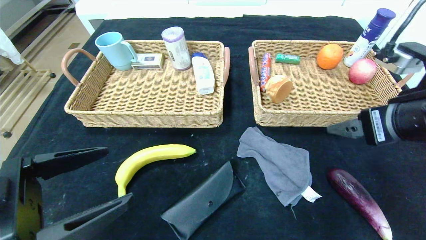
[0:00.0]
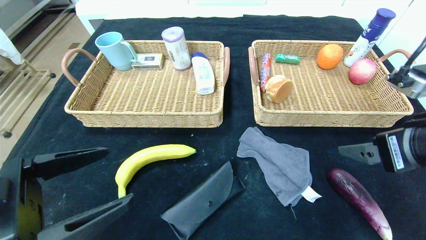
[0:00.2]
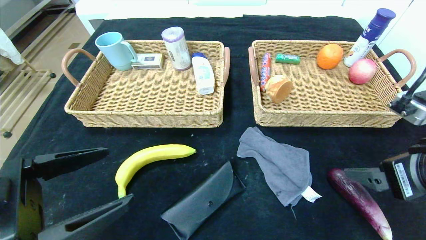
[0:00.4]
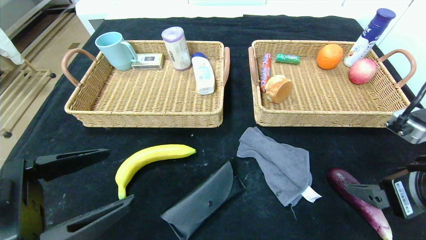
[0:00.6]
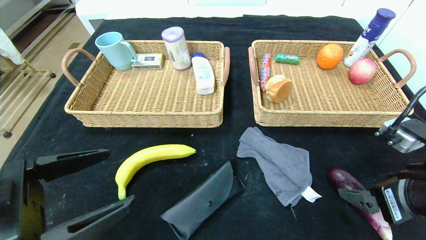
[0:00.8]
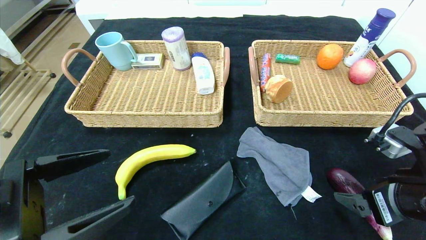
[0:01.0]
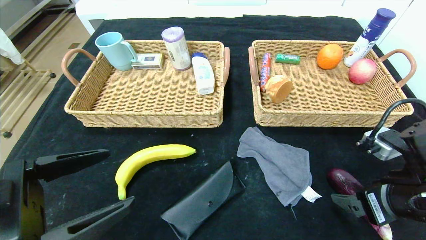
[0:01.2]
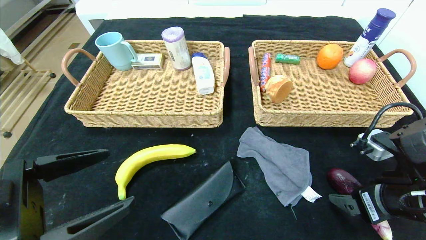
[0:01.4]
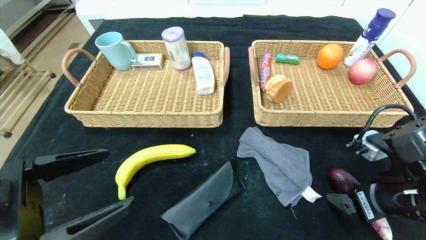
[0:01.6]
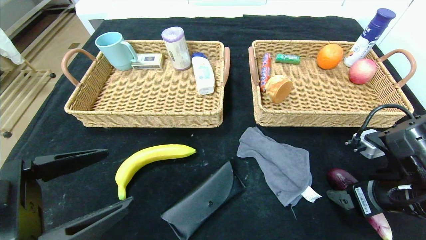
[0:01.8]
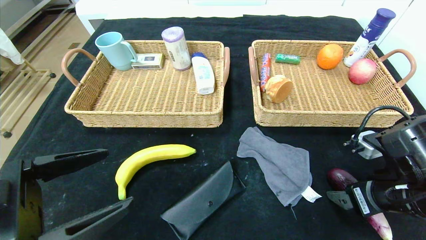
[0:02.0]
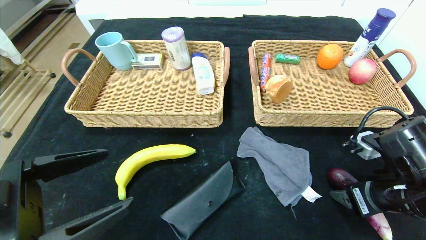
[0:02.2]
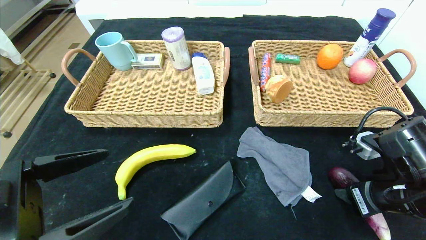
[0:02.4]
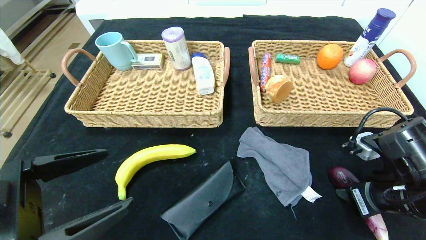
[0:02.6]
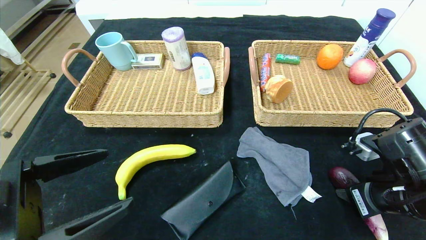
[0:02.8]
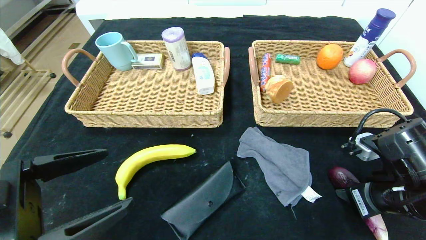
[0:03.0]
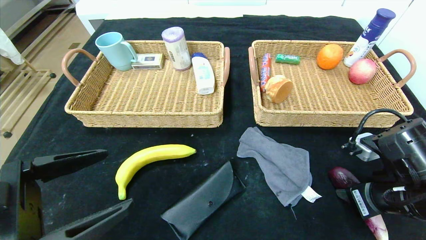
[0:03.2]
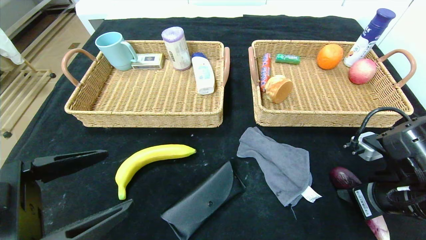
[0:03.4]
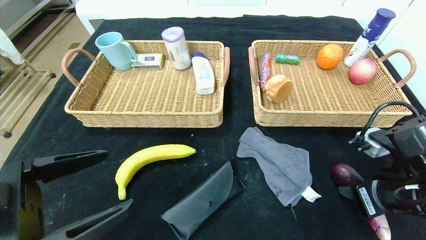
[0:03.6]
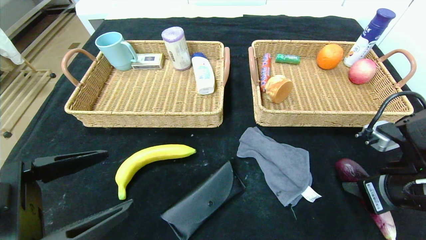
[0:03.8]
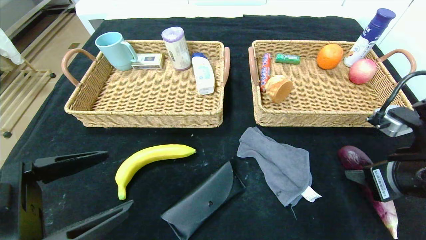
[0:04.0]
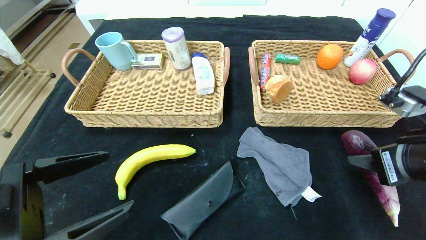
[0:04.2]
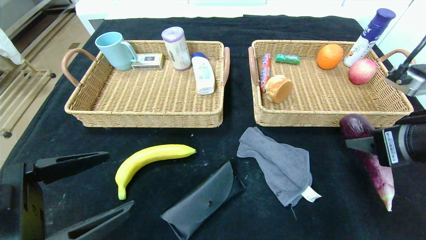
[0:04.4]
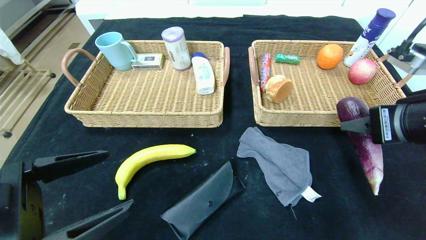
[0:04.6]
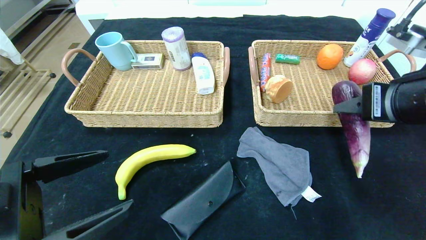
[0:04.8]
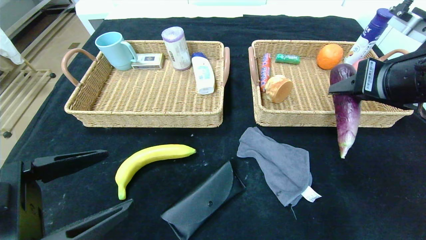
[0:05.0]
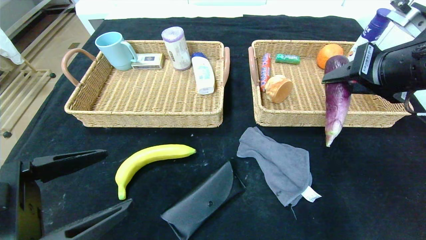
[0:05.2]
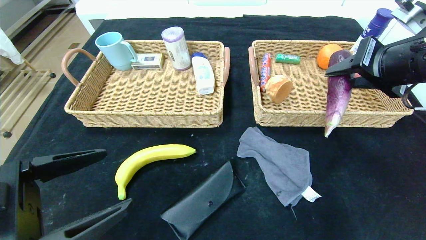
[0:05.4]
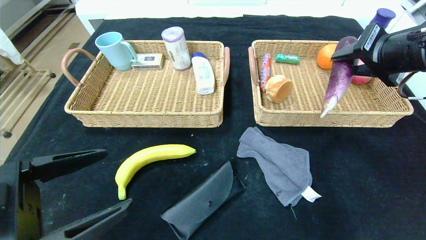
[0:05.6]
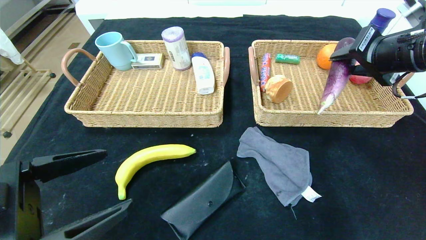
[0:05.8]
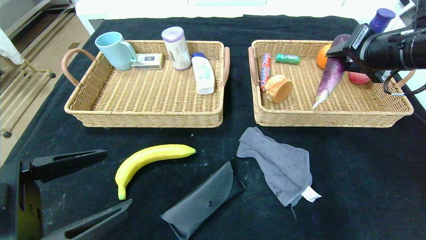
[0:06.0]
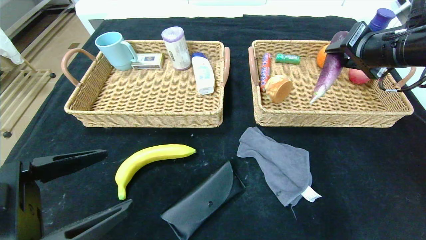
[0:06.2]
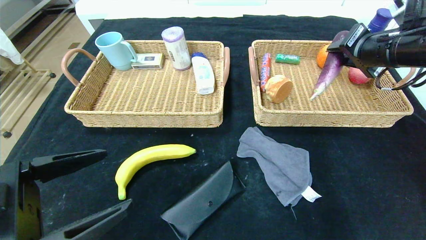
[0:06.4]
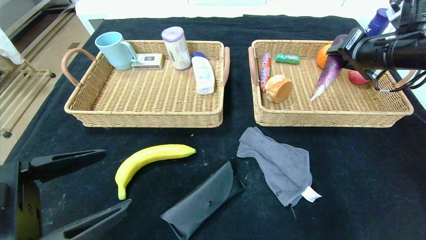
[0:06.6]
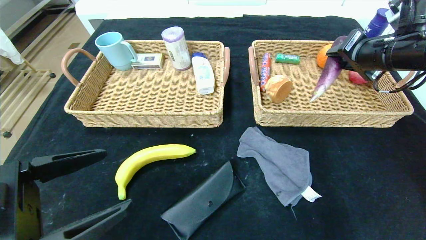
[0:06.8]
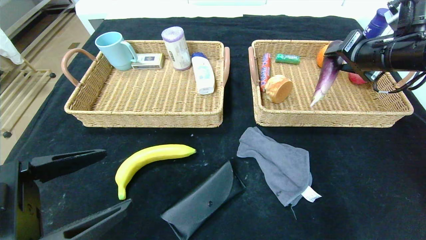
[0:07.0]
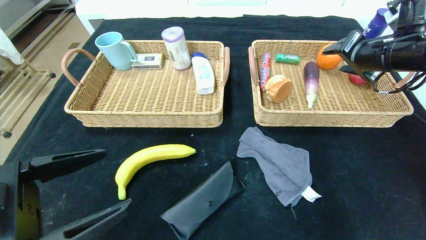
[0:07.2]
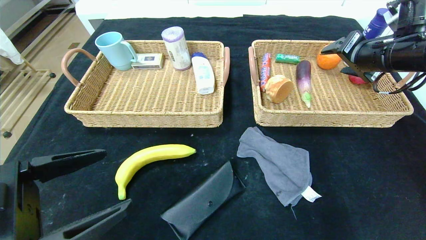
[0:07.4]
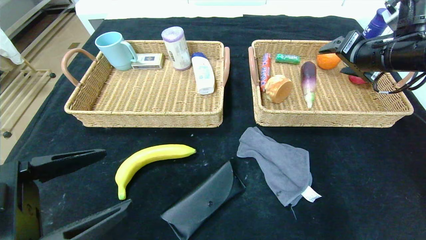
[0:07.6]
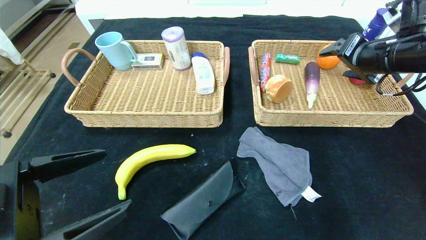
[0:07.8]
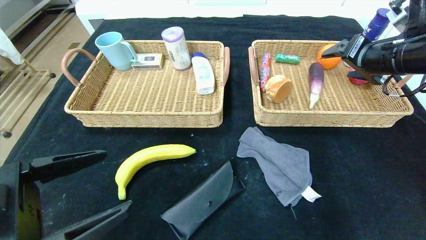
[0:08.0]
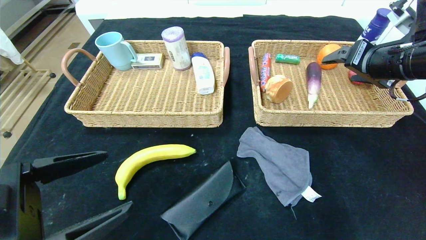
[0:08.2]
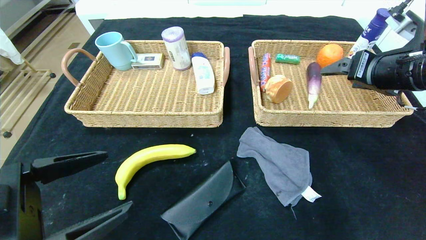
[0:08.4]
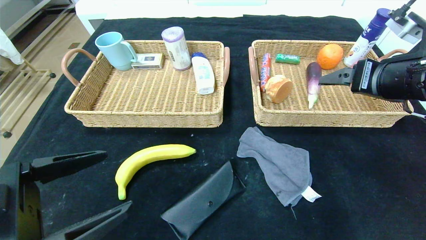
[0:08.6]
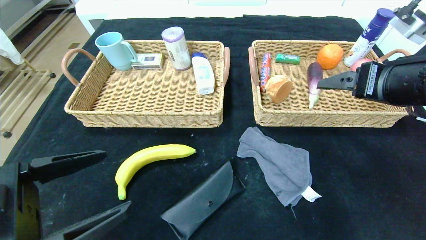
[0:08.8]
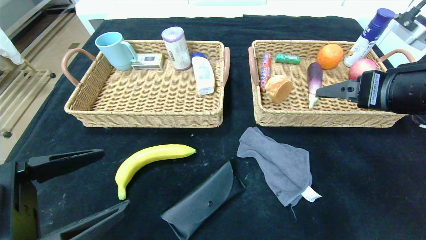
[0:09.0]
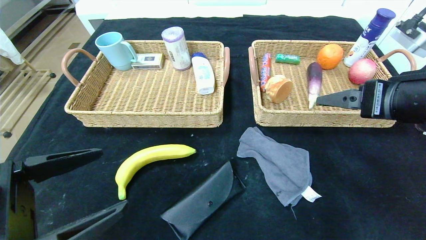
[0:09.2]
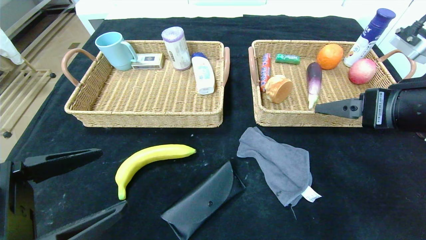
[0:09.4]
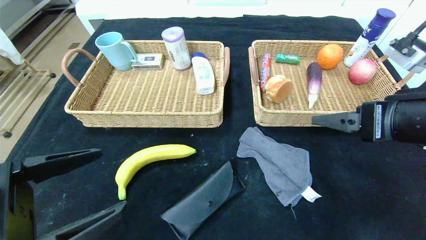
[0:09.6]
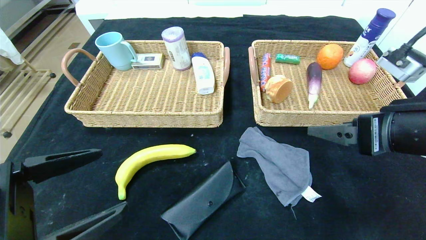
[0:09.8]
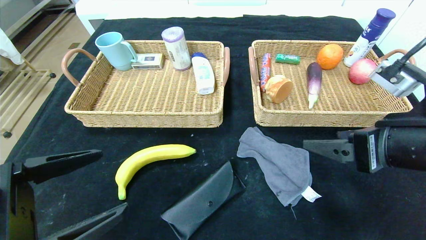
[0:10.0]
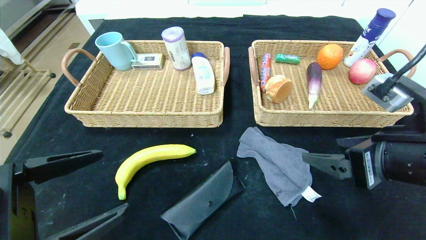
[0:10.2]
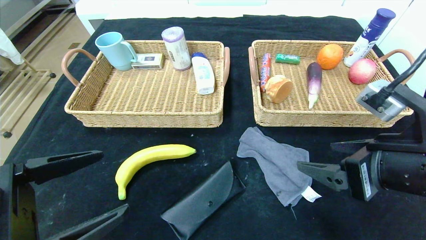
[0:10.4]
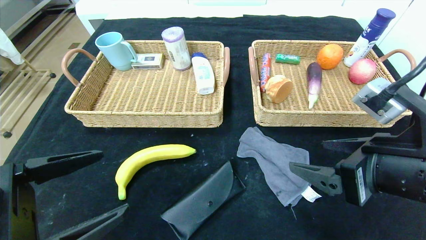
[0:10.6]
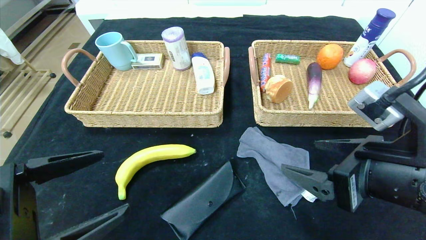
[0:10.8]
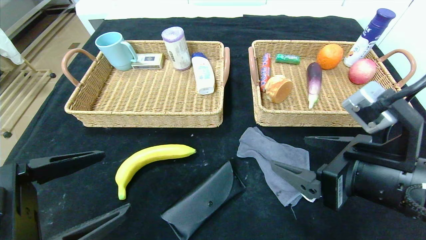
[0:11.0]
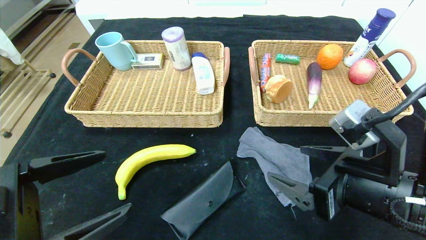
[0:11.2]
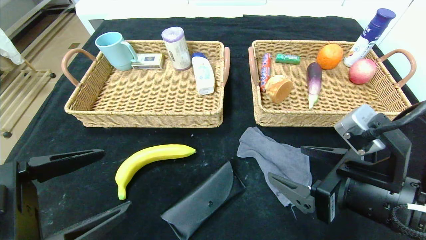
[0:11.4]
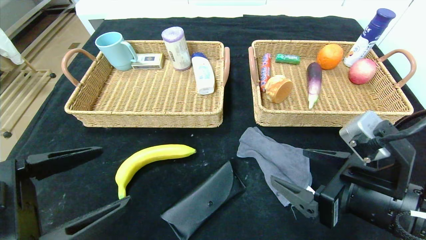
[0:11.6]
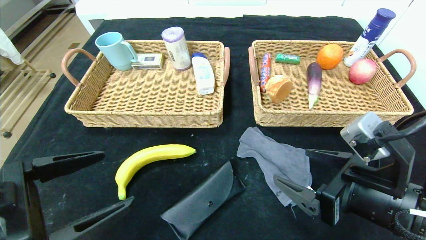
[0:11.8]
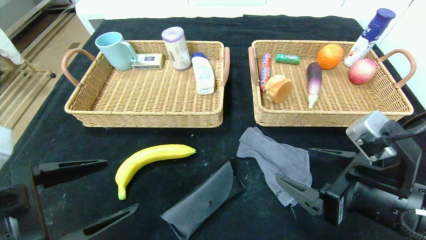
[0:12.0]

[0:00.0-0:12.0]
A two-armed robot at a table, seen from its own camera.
Step, 0:00.0 to 0:07.2: Grasp the eggplant and put it in the right basket.
0:00.0 to 0:01.6: The right gripper goes approximately 10 cm downward.
0:01.6 to 0:03.0: The right gripper closes.
0:03.0 to 0:04.4: The right gripper heads upward, covering about 10 cm.
0:04.4 to 0:06.0: The right gripper shifts about 15 cm forward and upward.
0:06.0 to 0:07.6: The right gripper opens.
0:07.6 to 0:09.0: The right gripper is displaced backward by approximately 10 cm.
0:09.0 to 0:10.4: The right gripper heads downward and backward, covering about 10 cm.
0:10.4 to 0:12.0: The right gripper shifts by about 5 cm.

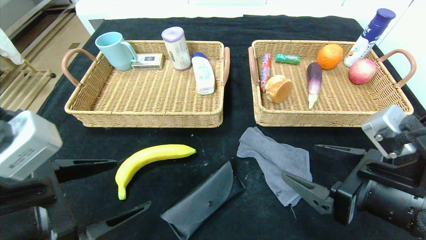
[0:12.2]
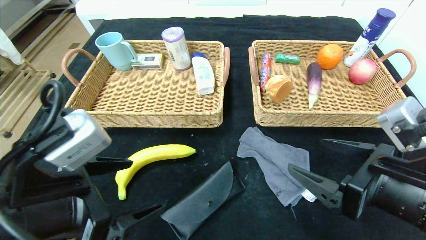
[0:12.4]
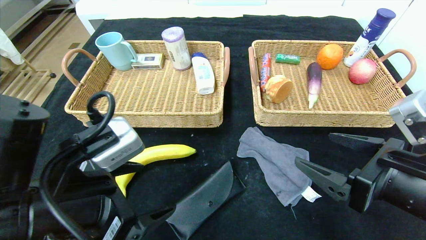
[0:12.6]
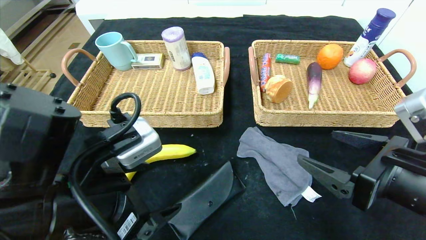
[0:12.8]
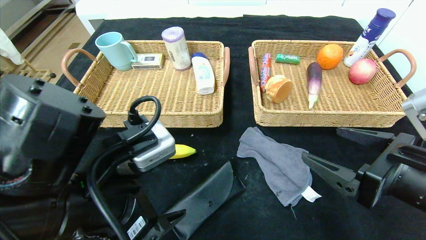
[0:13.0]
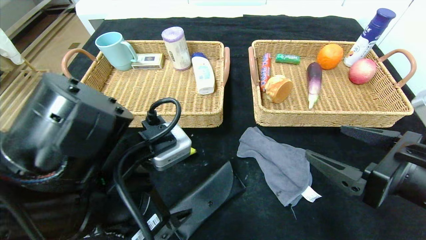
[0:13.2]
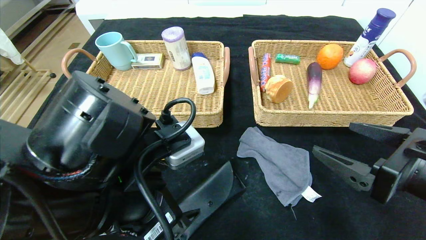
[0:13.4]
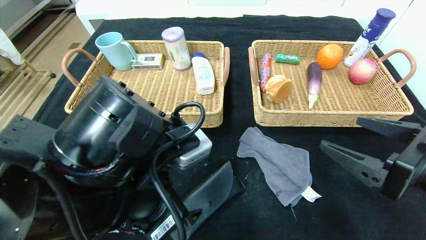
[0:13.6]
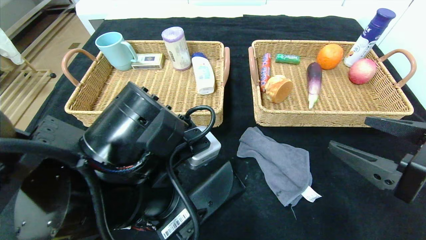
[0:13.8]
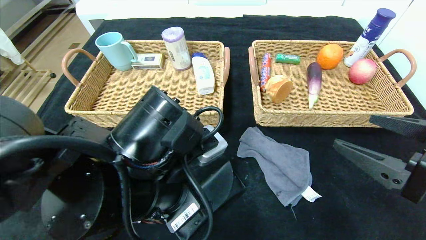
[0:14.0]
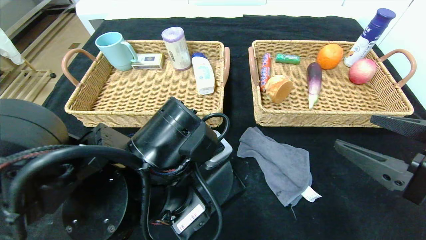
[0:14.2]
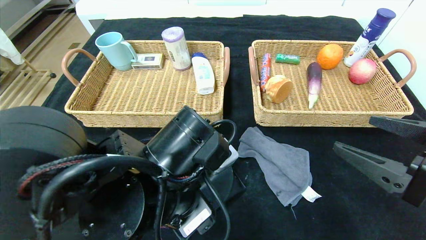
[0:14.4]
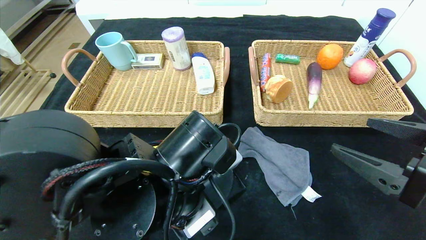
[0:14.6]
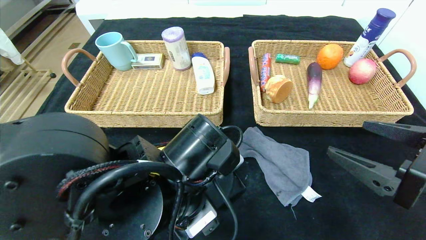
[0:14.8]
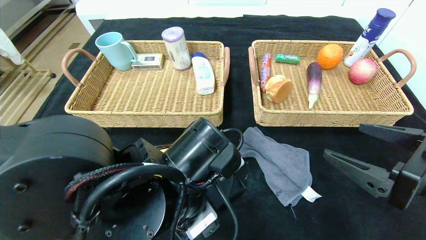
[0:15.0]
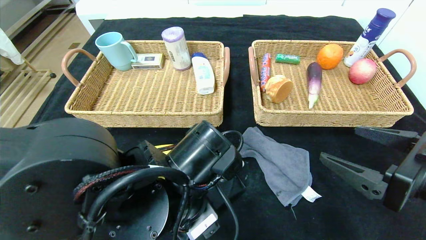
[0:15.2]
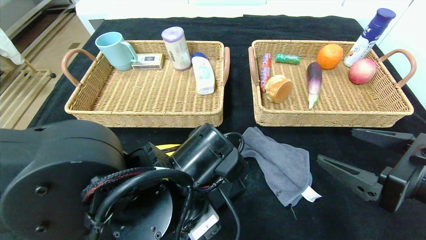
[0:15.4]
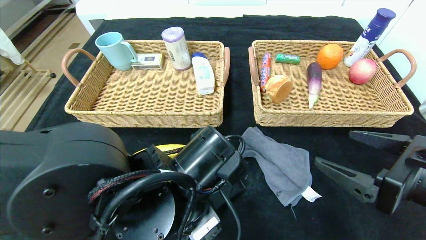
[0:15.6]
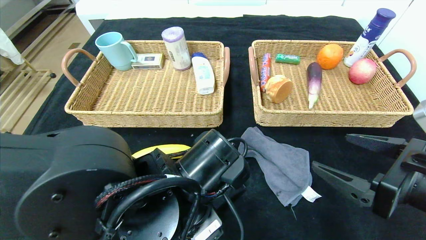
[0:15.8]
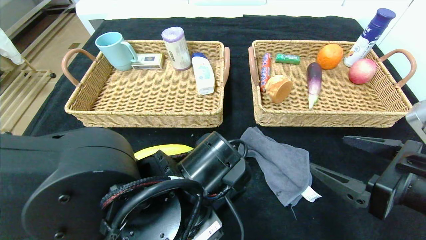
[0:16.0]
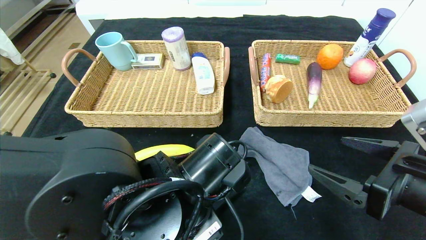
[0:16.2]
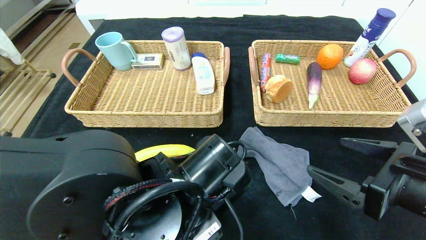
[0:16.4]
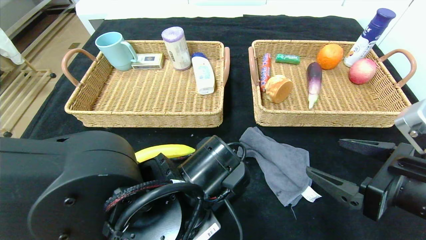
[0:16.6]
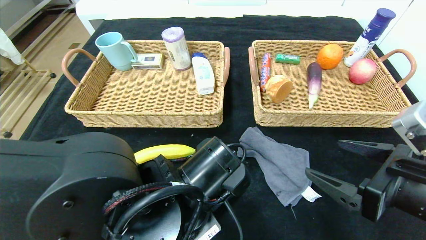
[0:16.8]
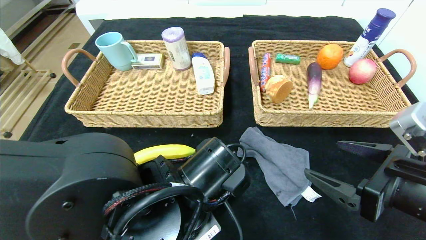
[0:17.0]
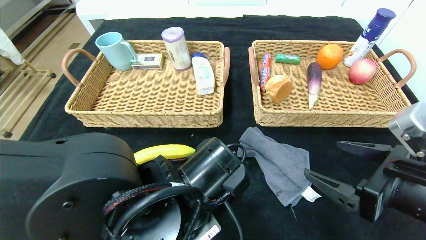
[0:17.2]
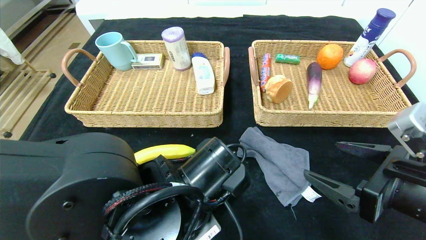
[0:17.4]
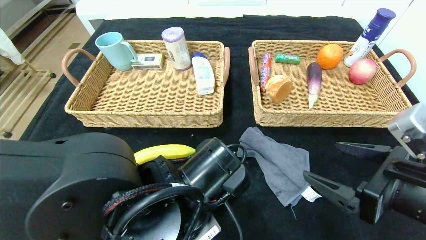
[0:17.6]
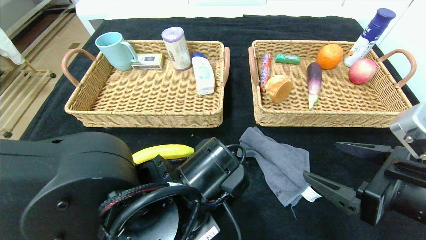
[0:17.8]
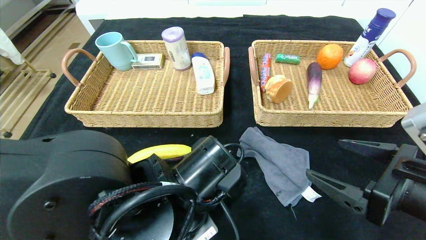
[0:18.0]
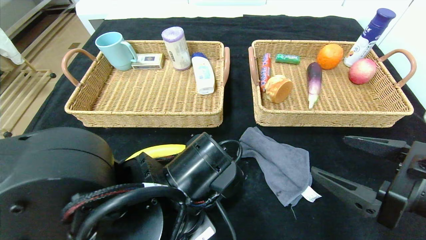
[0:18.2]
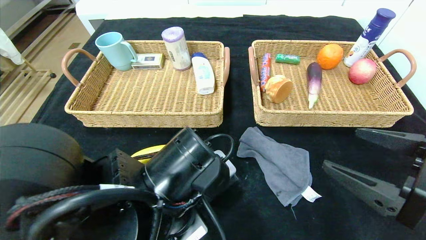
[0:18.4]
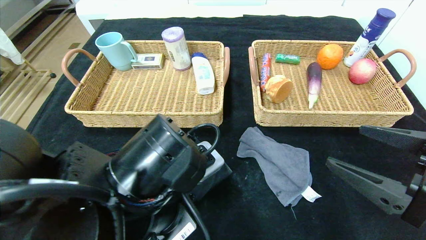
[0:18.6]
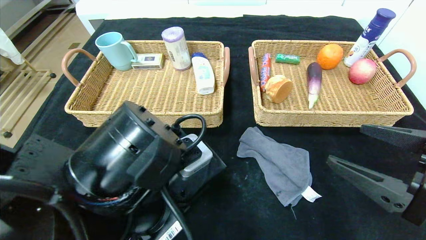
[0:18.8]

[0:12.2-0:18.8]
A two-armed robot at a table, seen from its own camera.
0:12.2 to 0:13.8: The left gripper travels to the right and forward by some 15 cm. Meanwhile the right gripper changes place by approximately 5 cm.
0:13.8 to 0:15.4: The left gripper changes place by approximately 5 cm.
0:15.4 to 0:17.2: The left gripper closes its fingers.
0:17.2 to 0:18.8: The left gripper shifts roughly 5 cm upward.
